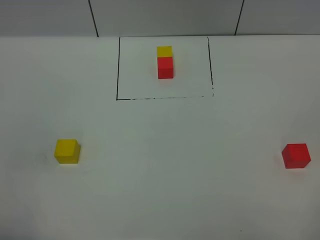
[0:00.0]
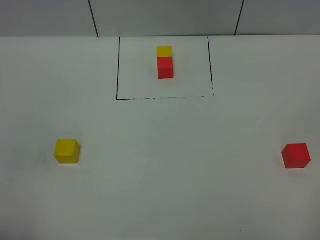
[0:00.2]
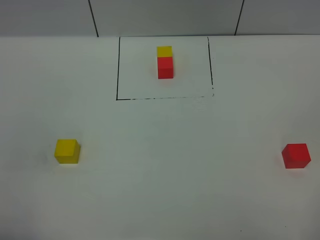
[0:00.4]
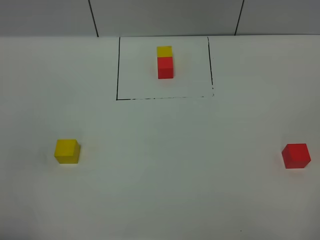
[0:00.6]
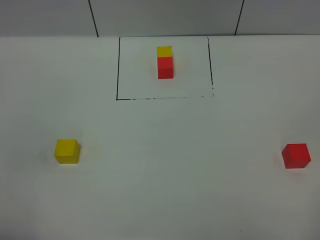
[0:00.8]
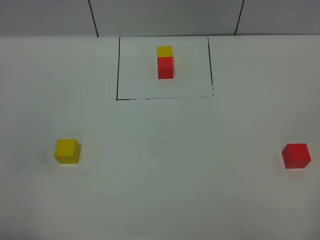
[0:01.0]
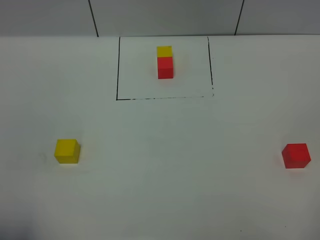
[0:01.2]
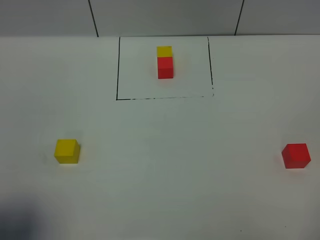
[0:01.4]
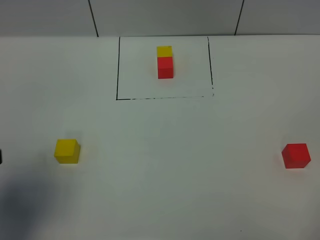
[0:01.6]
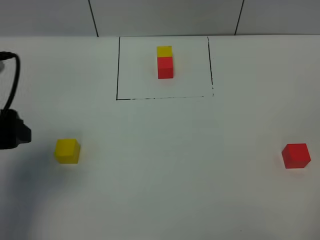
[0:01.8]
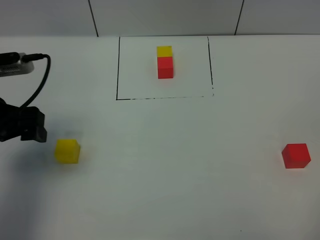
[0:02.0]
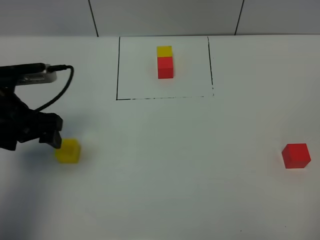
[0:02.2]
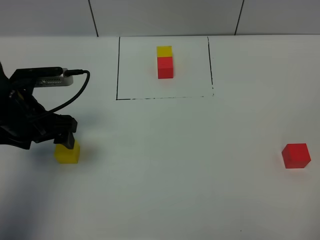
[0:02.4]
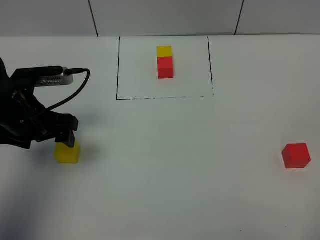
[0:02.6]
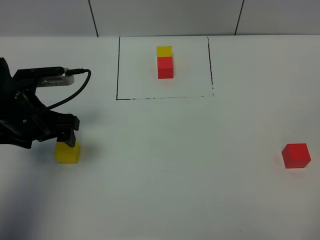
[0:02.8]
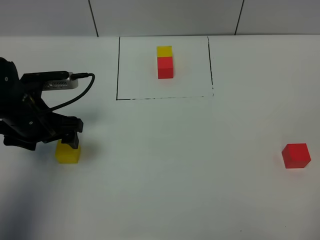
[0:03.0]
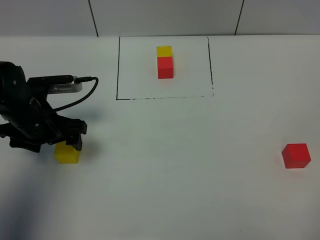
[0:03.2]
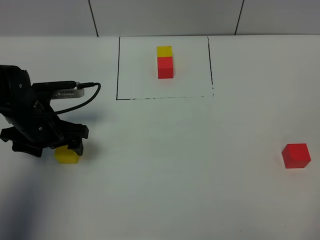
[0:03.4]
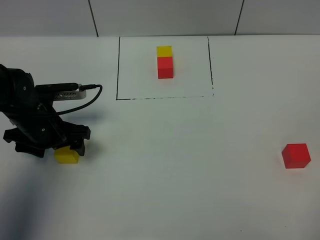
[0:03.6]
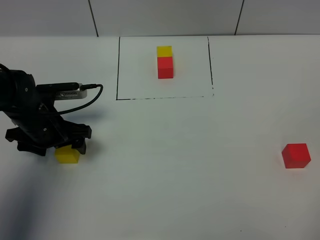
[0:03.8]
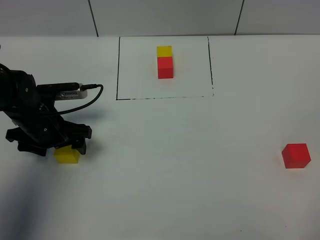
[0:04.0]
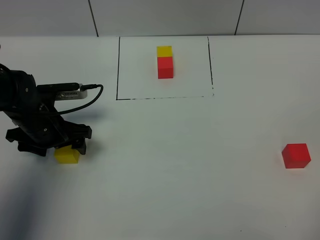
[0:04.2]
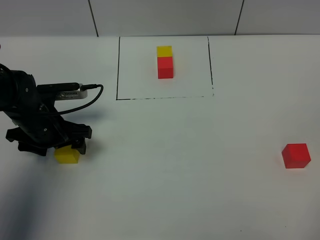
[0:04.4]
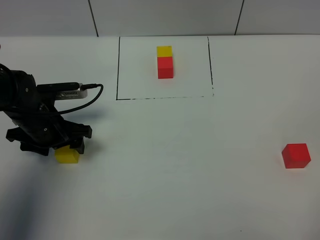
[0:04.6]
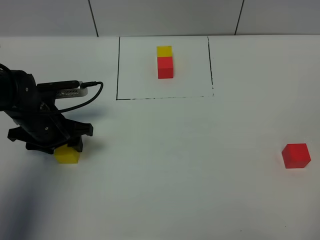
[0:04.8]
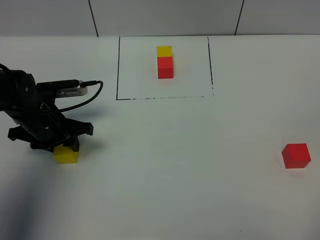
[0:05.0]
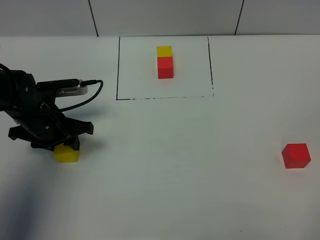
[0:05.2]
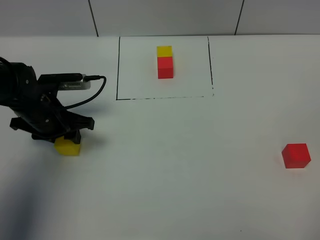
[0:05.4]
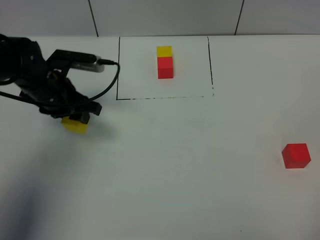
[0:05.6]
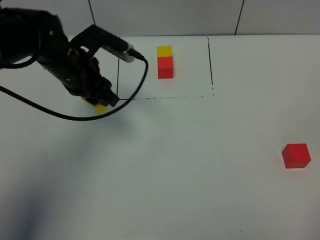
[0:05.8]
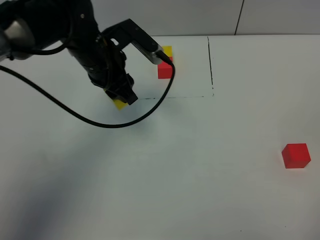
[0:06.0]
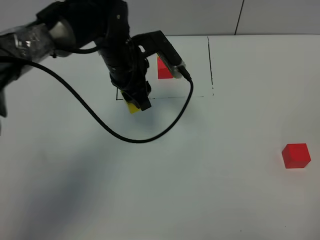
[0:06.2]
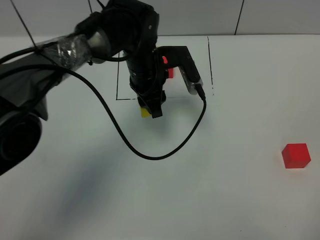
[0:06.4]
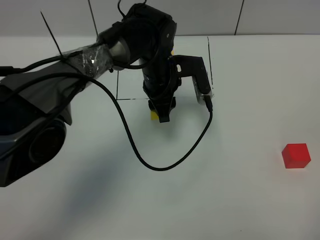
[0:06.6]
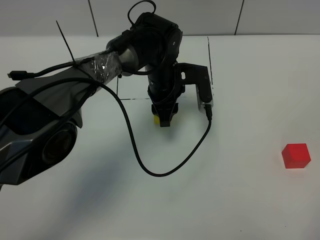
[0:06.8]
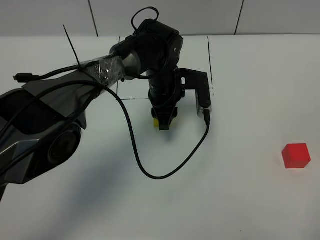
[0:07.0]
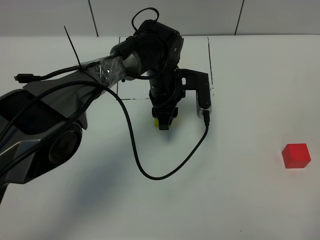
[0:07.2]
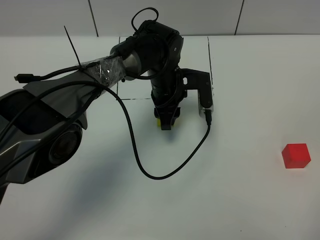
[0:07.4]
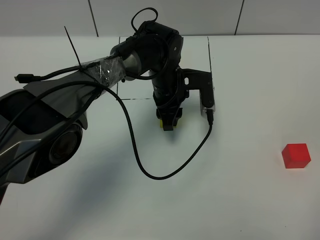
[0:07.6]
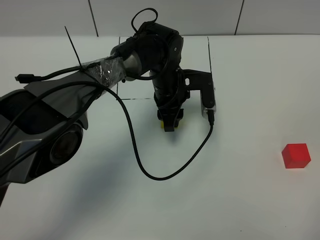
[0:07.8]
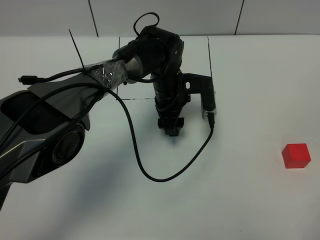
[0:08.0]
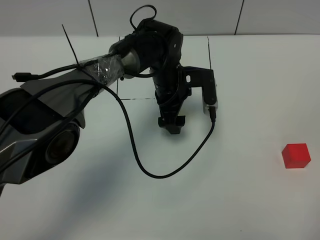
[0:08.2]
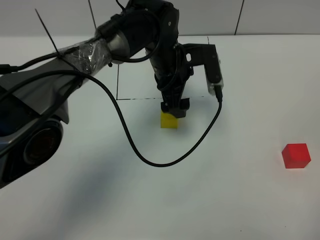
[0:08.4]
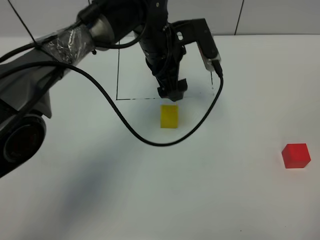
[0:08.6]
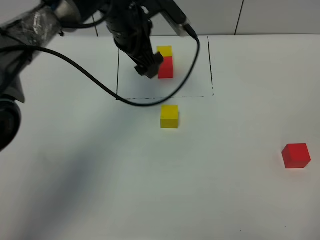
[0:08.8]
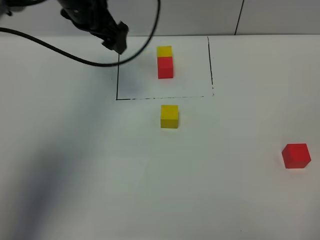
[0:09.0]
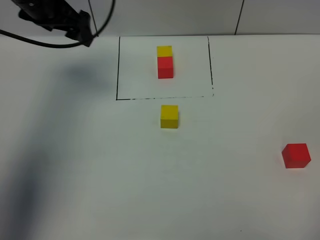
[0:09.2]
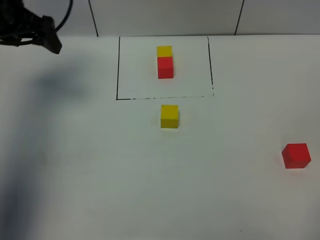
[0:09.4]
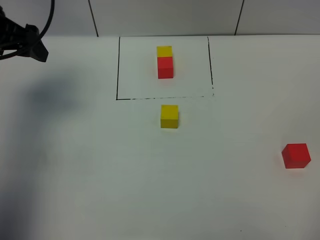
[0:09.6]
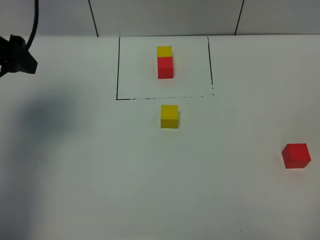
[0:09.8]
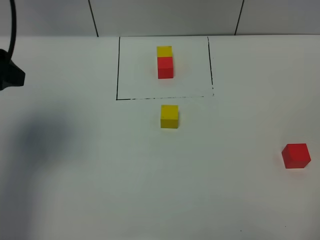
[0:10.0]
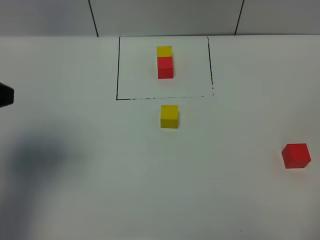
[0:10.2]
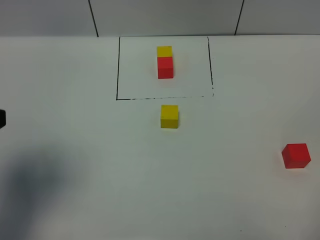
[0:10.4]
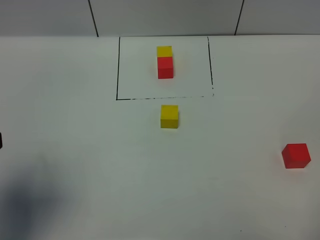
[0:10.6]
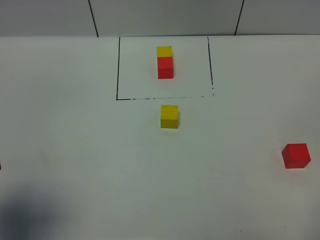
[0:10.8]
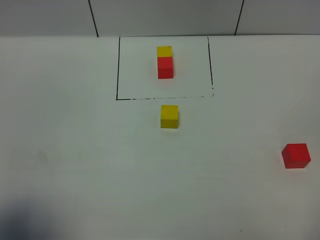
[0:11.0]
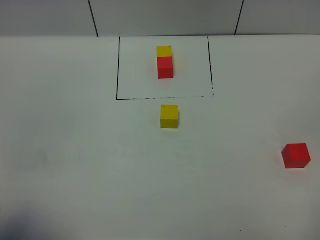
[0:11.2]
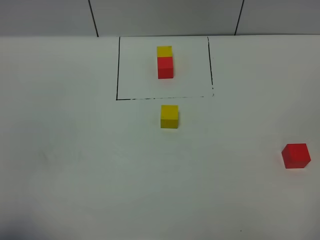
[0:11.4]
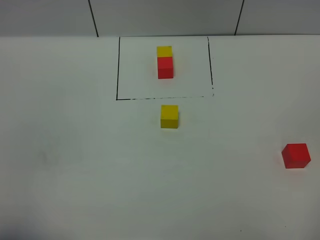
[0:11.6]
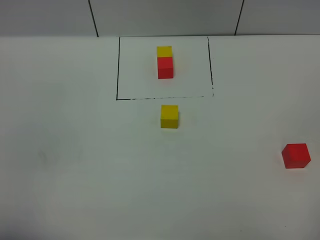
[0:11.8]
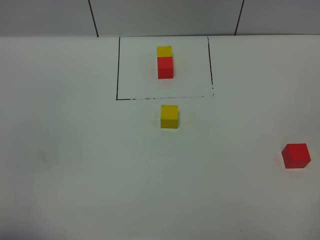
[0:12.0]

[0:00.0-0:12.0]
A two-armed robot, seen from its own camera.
Task of the whole recording: According to the building block template in front, assemble the scattered blocks together.
Step, 0:01.6 to 0:08.2: Put the yellow cube in the center of the table.
0:00.0 to 0:01.6: The left gripper moves forward, some 15 cm.
0:01.6 to 0:03.0: The left gripper travels forward and downward by approximately 20 cm.
0:03.0 to 0:04.4: There are only small adjustments of the grippers.
0:04.4 to 0:06.0: The left gripper is displaced to the right, upward and forward by some 15 cm, and closes.
0:06.0 to 0:07.6: The left gripper travels to the right and downward by about 15 cm.
0:07.6 to 0:09.0: The left gripper travels to the left and upward by about 25 cm, and opens.
0:09.0 to 0:10.4: The left gripper is displaced backward and to the left by some 35 cm.
0:10.4 to 0:12.0: The left gripper heads backward and downward, covering roughly 15 cm.

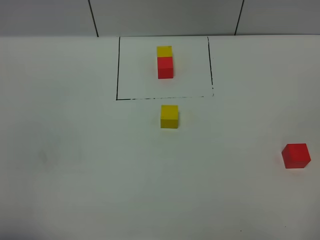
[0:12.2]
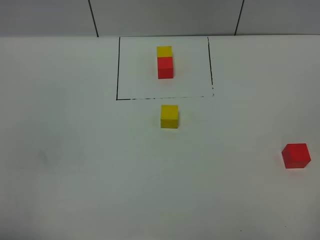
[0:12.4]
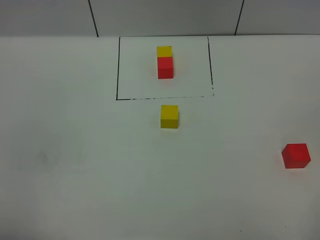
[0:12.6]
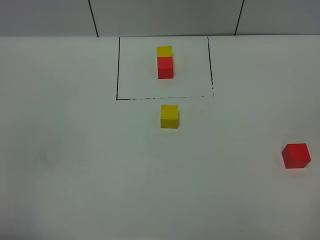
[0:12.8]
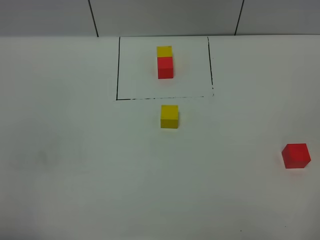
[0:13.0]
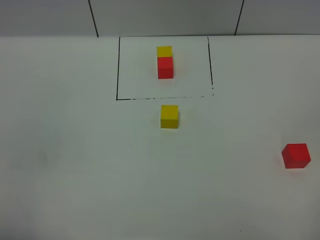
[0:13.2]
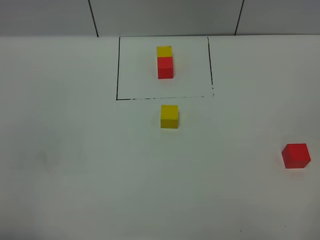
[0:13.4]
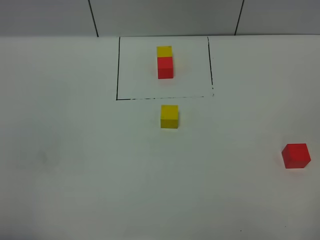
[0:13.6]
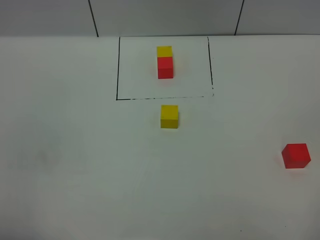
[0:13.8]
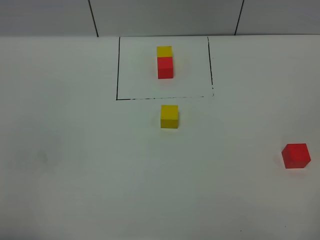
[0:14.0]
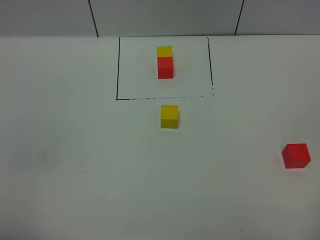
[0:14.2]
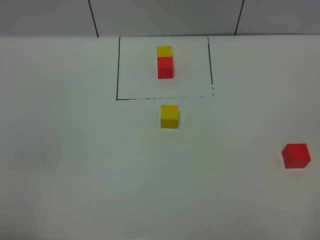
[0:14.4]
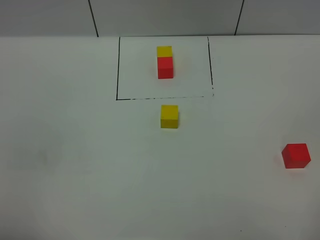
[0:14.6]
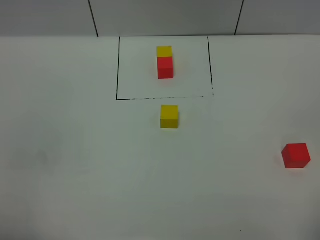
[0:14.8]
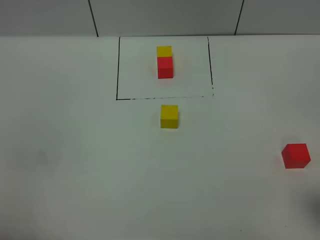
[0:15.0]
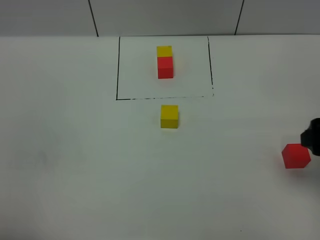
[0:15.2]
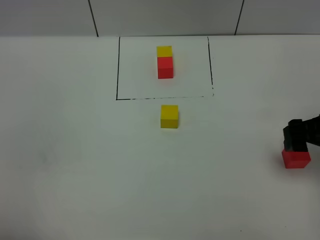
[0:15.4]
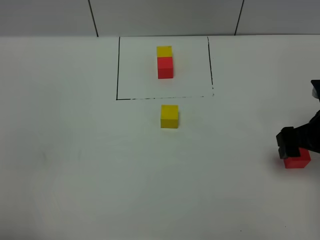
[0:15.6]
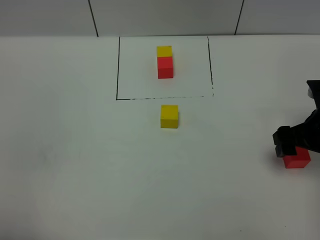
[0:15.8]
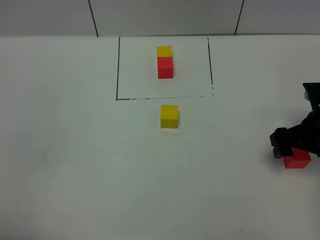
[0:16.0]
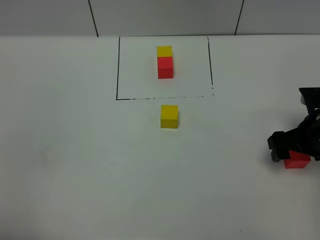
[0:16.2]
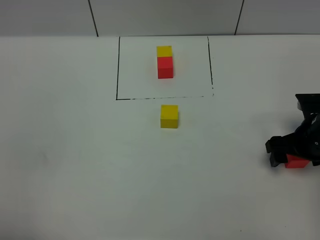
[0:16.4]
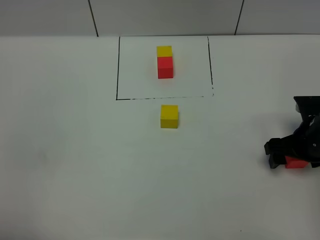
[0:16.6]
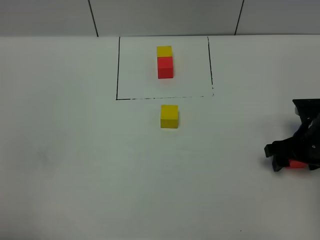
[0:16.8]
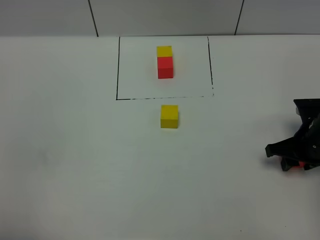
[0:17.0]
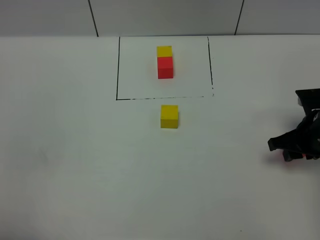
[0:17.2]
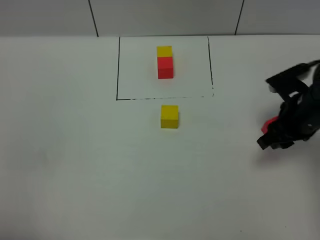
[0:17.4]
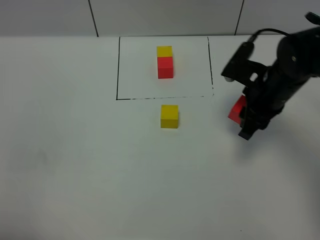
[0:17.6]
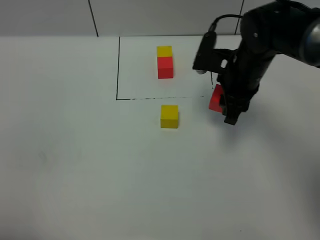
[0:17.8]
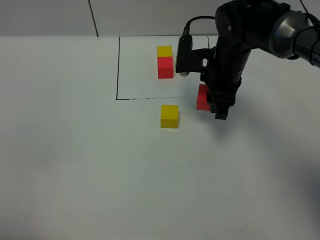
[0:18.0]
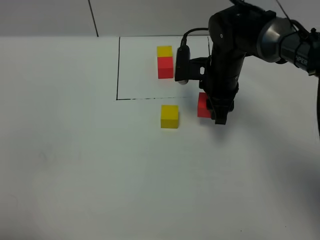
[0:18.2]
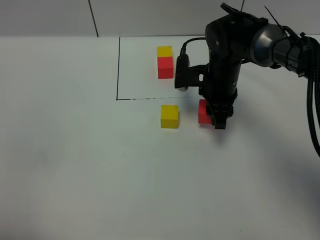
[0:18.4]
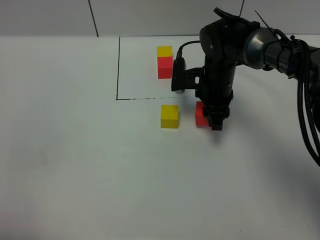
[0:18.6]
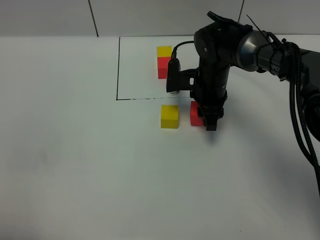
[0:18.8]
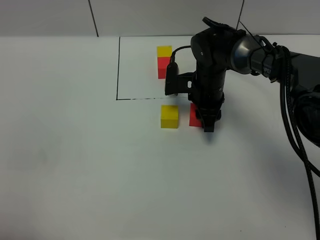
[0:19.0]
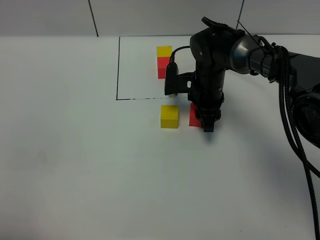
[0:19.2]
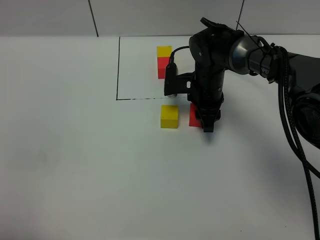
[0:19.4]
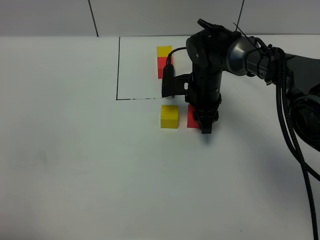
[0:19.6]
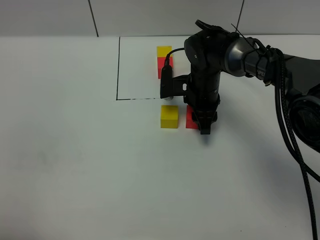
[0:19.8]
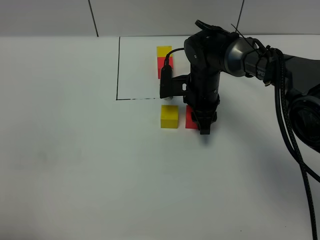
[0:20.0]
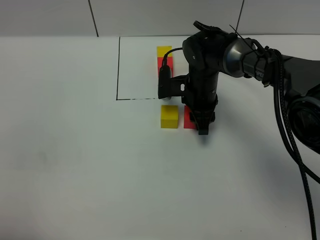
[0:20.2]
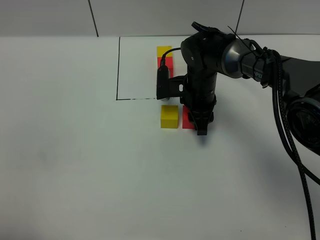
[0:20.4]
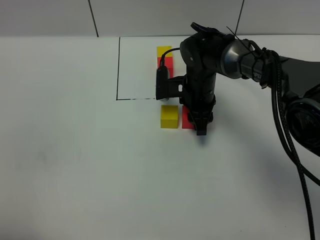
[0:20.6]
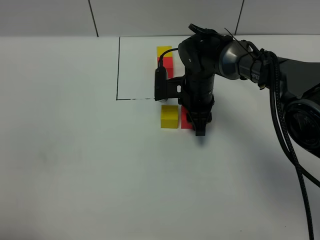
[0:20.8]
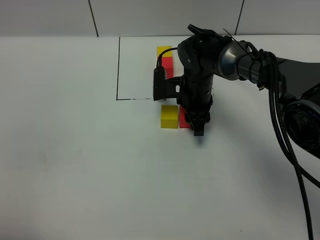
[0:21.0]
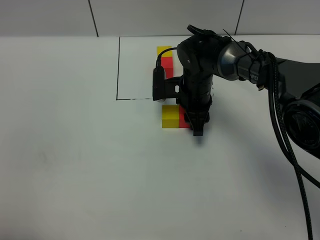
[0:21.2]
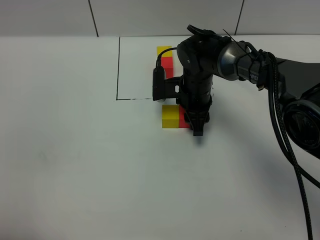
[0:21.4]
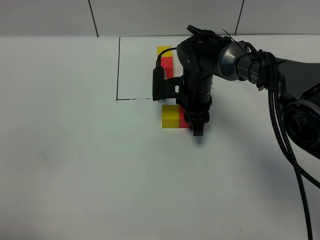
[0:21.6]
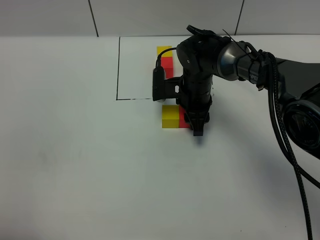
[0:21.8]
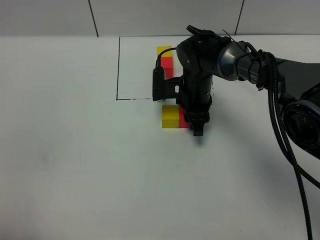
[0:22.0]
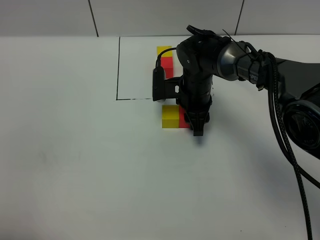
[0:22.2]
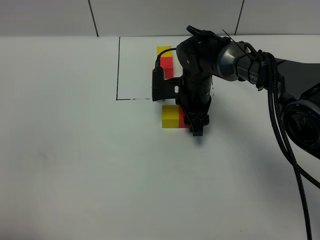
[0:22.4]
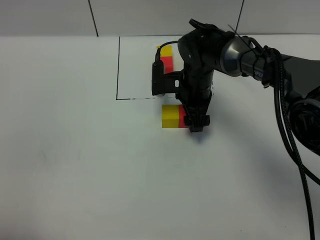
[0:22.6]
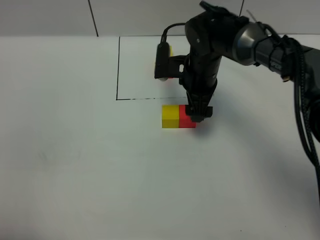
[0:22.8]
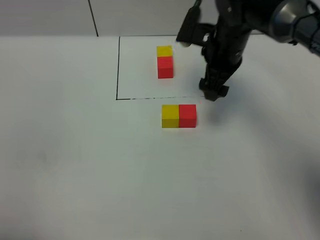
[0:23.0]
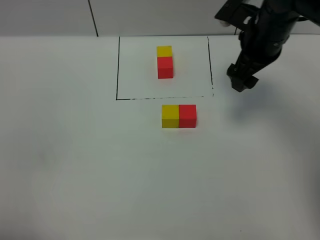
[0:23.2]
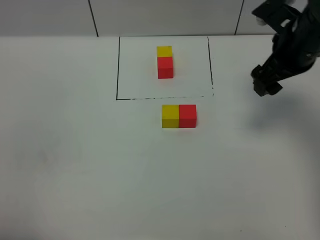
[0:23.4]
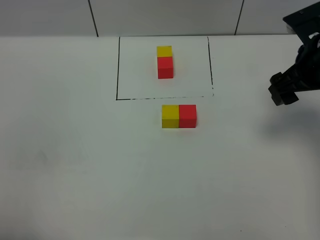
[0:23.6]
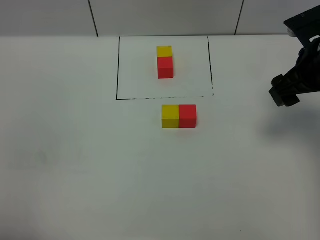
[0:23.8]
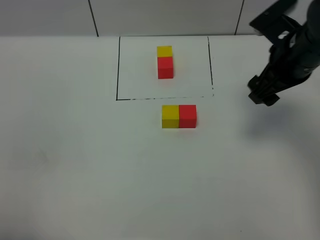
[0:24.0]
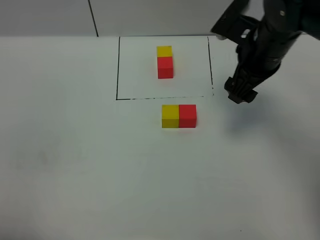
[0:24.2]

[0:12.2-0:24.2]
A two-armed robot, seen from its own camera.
Task of the whole recording: According to the building block template in front, assemble the scattered blocks together.
Step, 0:12.2 to 0:22.6: Put the red cube on the right of the yellow cube.
0:12.2 to 0:13.8: The two grippers keep their place.
0:13.8 to 0:15.2: The right gripper moves forward, roughly 20 cm.
0:15.2 to 0:16.6: The right gripper goes some 15 cm downward and forward.
0:16.6 to 0:18.2: The right gripper moves to the left and forward, roughly 20 cm, and closes up.
0:18.2 to 0:19.8: The right gripper changes place by some 5 cm.
0:19.8 to 0:21.2: The grippers make only small movements.
0:21.2 to 0:22.6: The right gripper opens up.
0:22.6 to 0:24.2: The right gripper heads upward and to the right, covering about 15 cm.
